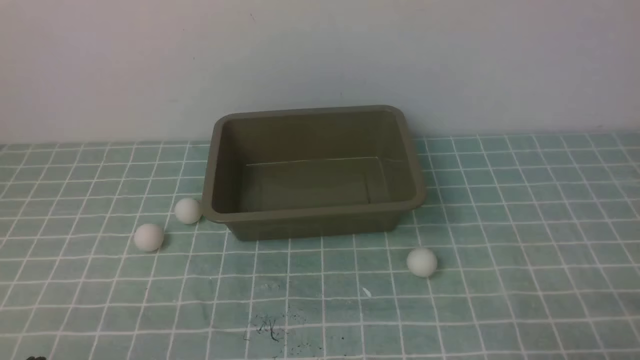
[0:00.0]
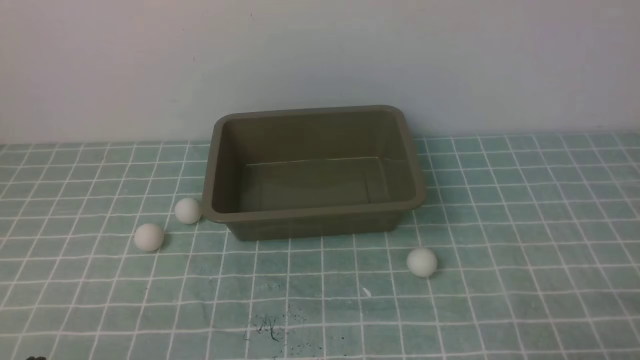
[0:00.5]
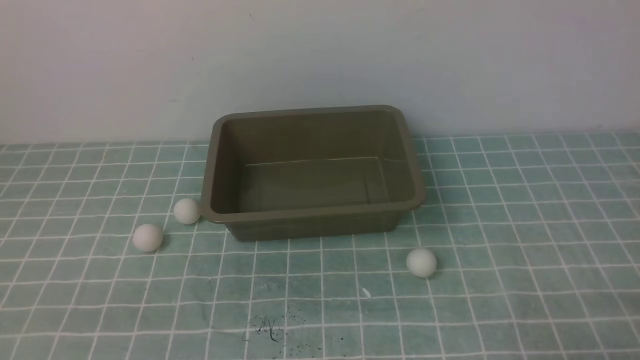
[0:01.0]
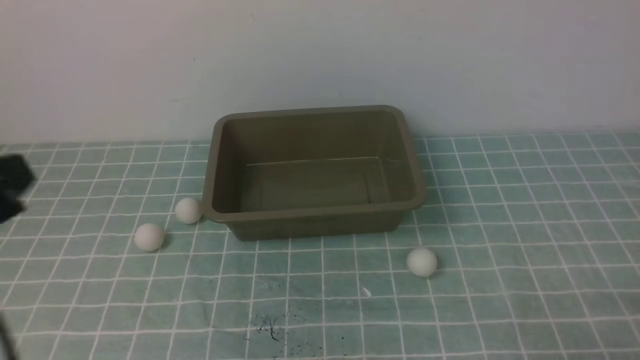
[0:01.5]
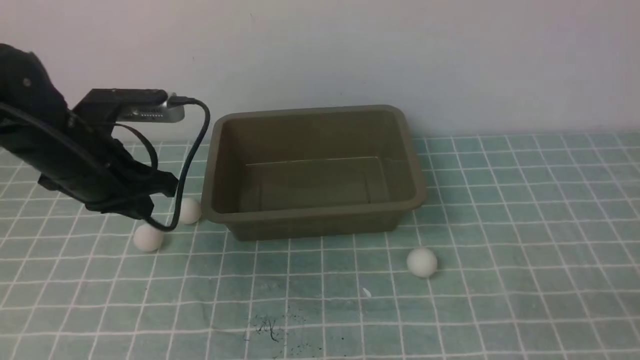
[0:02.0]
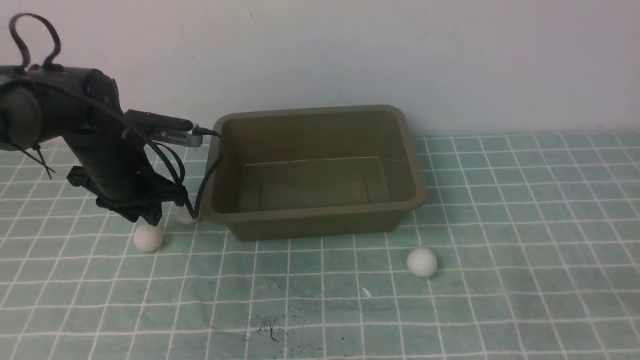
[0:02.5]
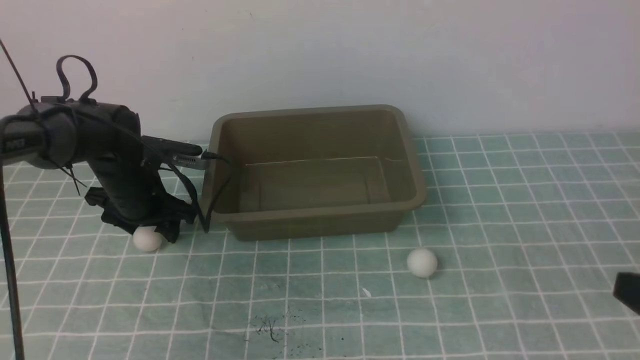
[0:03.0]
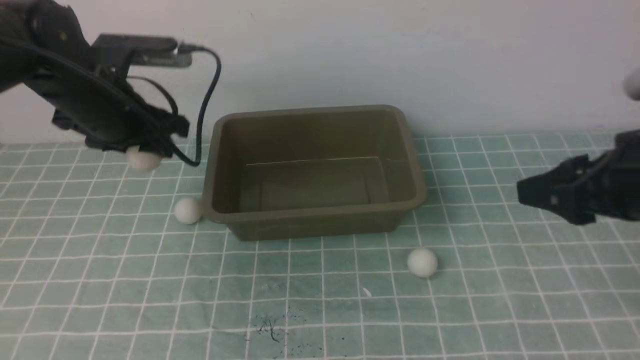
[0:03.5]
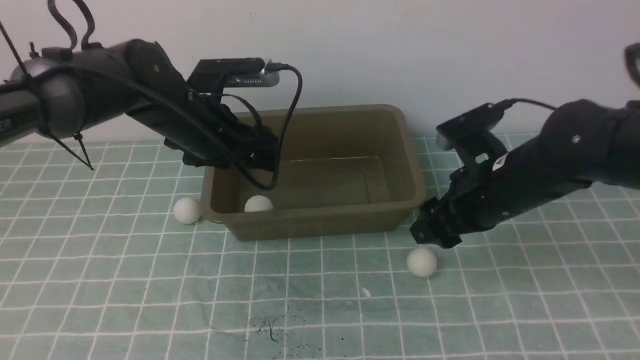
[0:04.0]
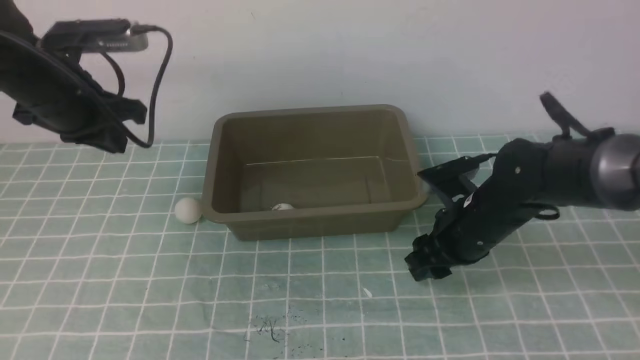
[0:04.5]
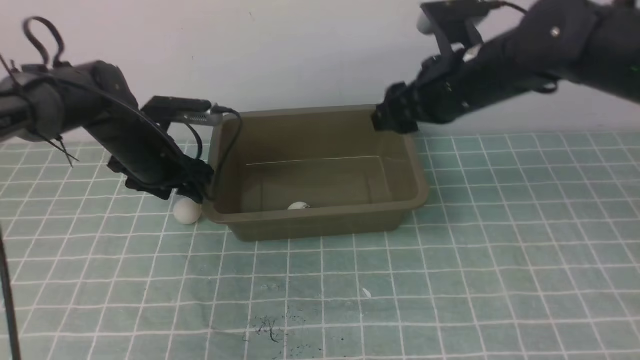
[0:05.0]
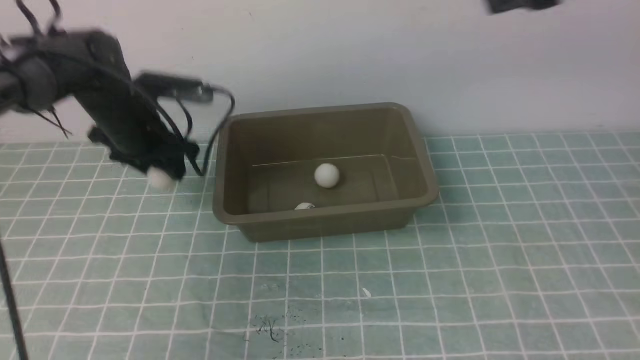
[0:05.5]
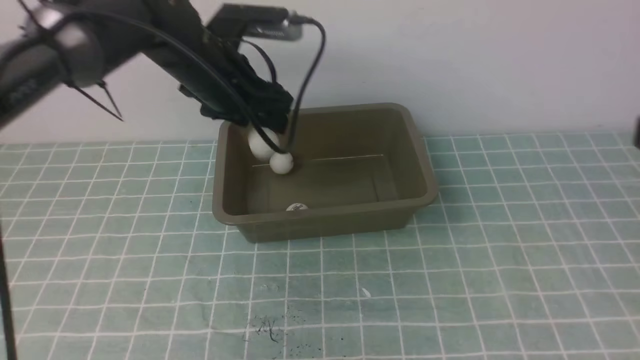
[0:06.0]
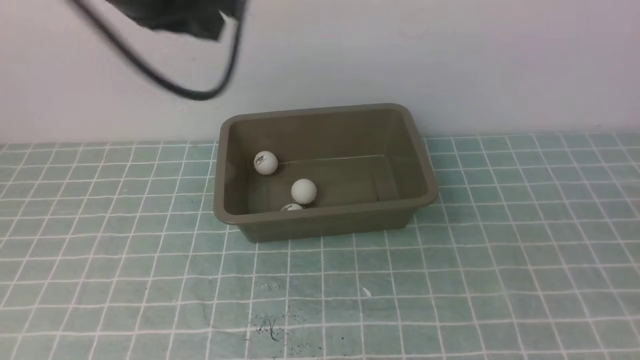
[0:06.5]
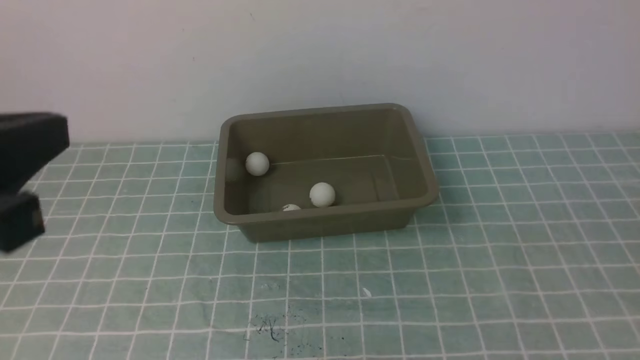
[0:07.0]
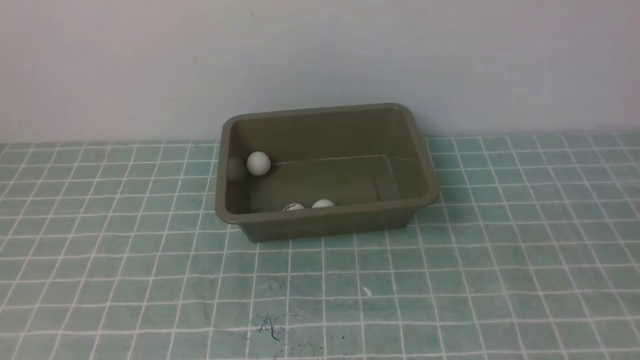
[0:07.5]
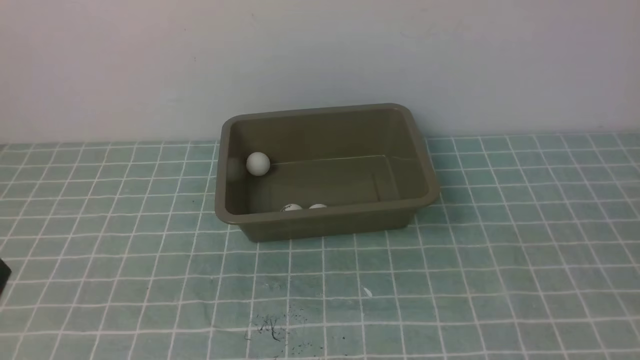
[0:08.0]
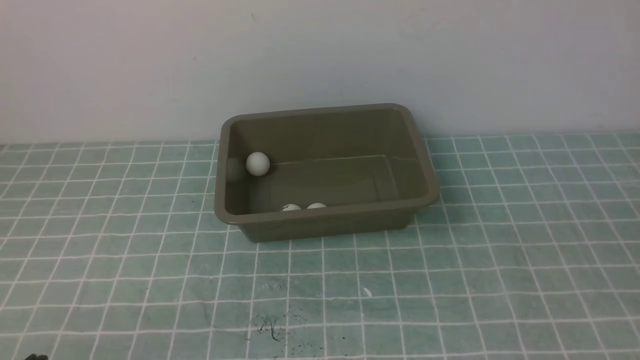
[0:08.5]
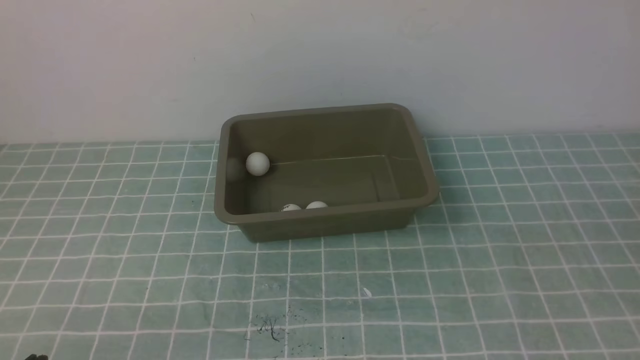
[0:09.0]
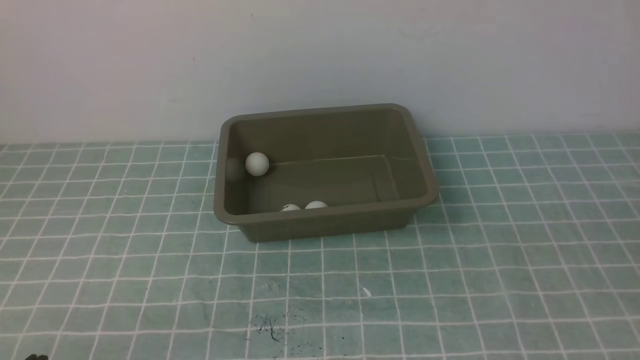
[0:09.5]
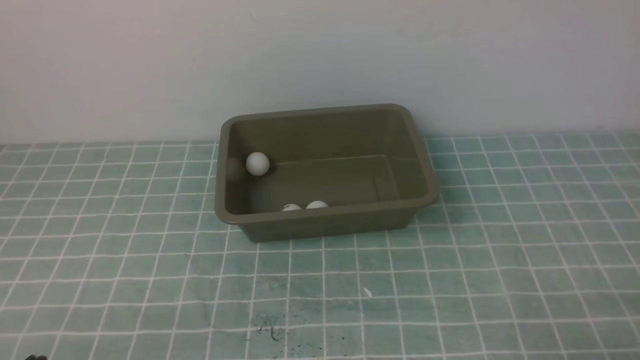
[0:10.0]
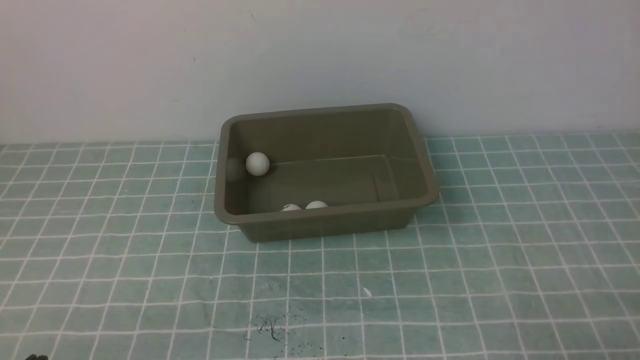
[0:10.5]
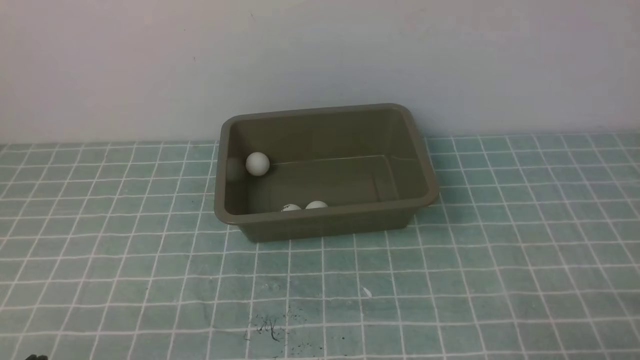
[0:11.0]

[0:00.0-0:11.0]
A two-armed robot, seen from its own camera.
Step, 0:00.0 to 0:03.0: use the left arm to clamp the table tennis ball closest to it.
Step, 0:04.0 to 0:04.5: use the right arm to clamp the table tennis ball closest to it.
Step, 0:05.5 to 0:06.0: use the left arm to put the table tennis ball into the box.
0:00.0 to 0:02.0: The left gripper is displaced forward by about 25 cm.
0:02.0 to 0:03.5: The left gripper shifts about 5 cm forward, goes downward and returns, roughly 10 cm each way, and opens up. Meanwhile the right gripper goes about 20 cm forward and upward, and opens its fingers.
0:03.5 to 0:05.5: The left gripper reaches some 10 cm downward, then returns, and closes, then opens again, while the right gripper travels upward and forward by approximately 15 cm, and closes.
0:05.5 to 0:07.5: The left gripper is displaced backward by roughly 40 cm, and closes; the right gripper travels backward by approximately 25 cm.
